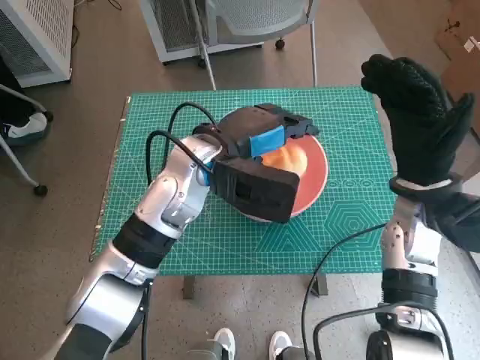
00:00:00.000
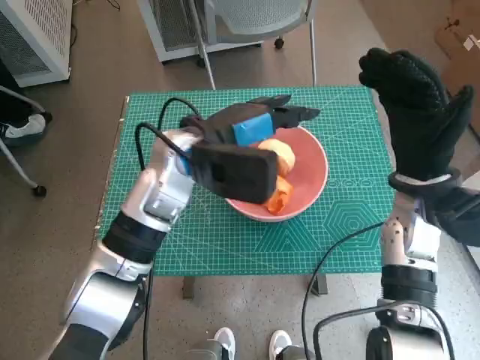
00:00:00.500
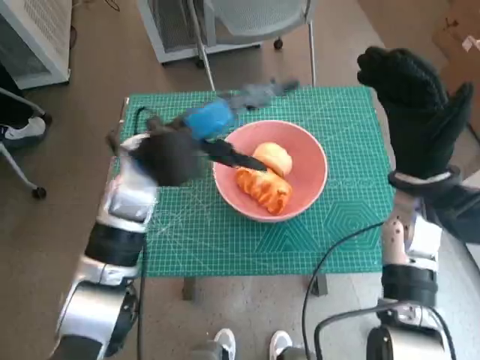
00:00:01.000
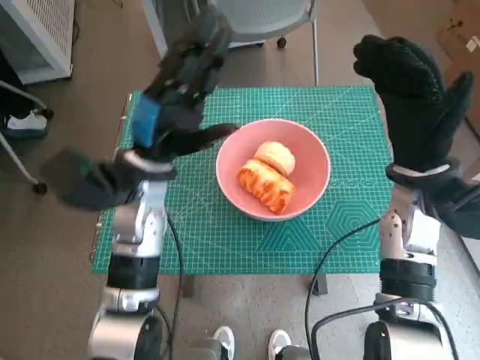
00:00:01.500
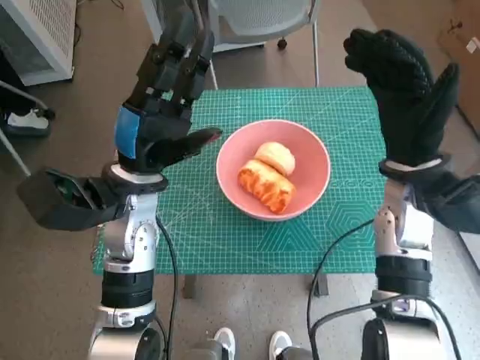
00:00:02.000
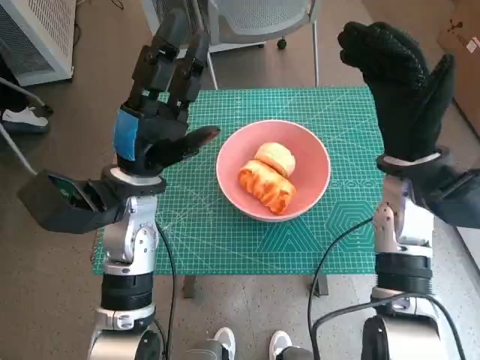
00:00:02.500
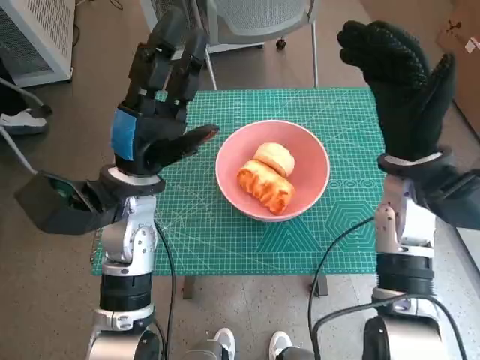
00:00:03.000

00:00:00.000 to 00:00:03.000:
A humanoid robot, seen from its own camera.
00:00:00.000 to 00:00:01.500: The left hand moves to the left, roughly 10 cm.

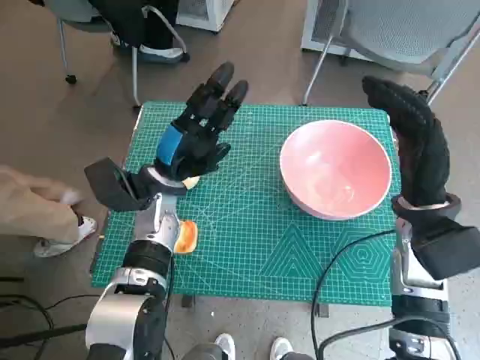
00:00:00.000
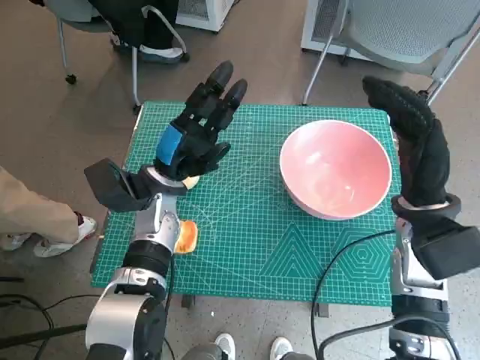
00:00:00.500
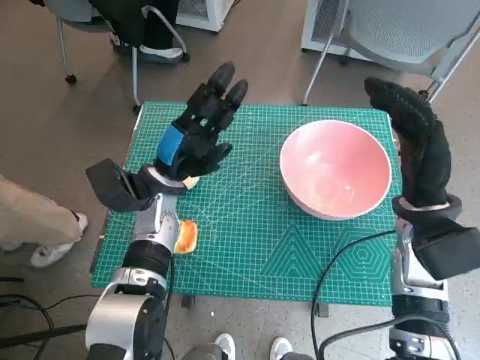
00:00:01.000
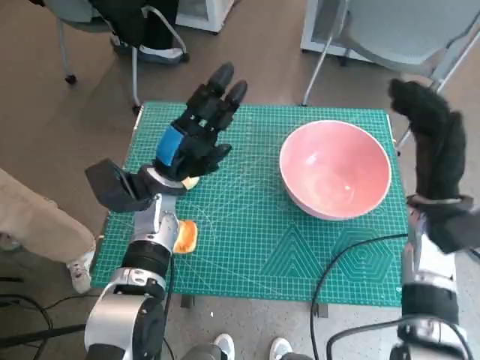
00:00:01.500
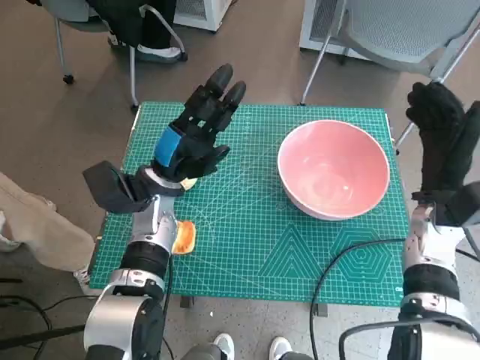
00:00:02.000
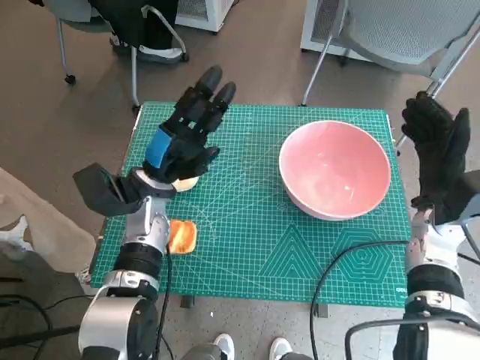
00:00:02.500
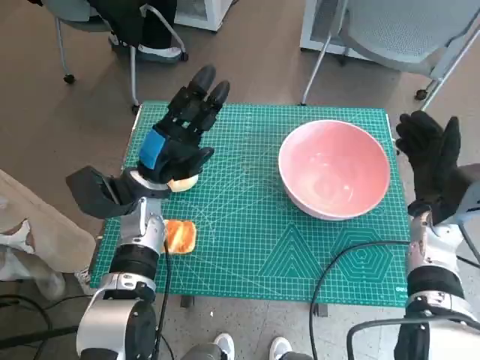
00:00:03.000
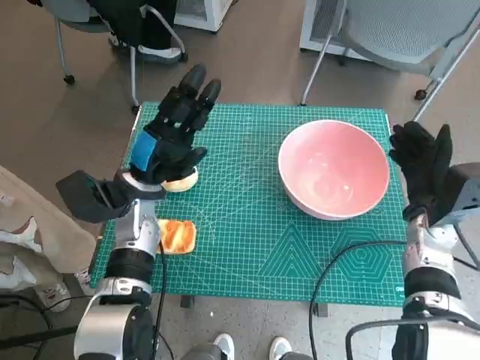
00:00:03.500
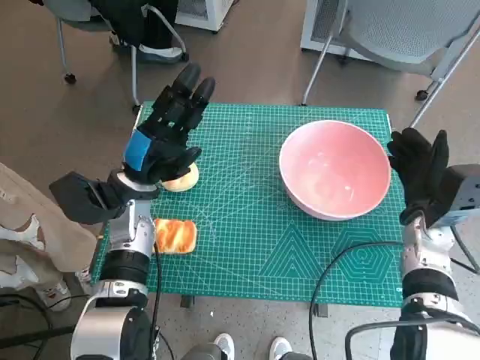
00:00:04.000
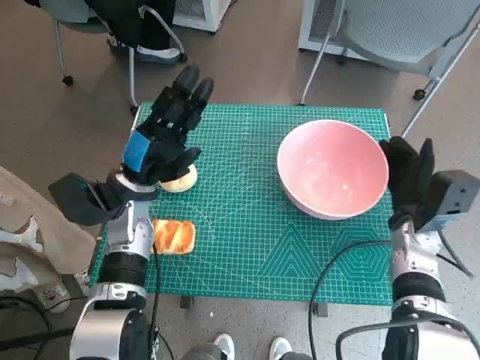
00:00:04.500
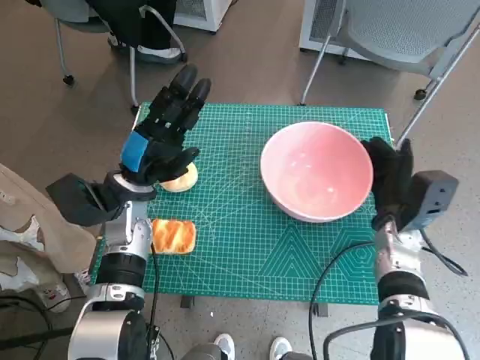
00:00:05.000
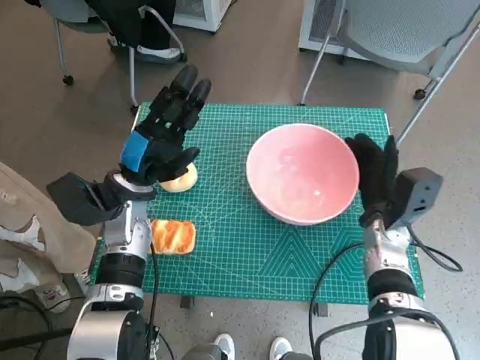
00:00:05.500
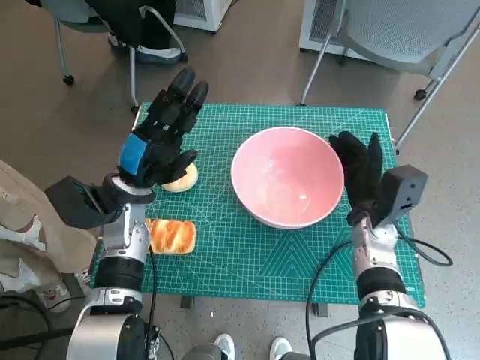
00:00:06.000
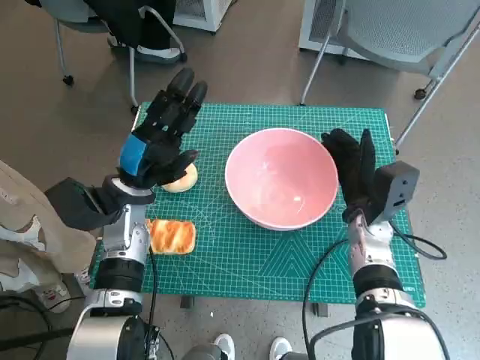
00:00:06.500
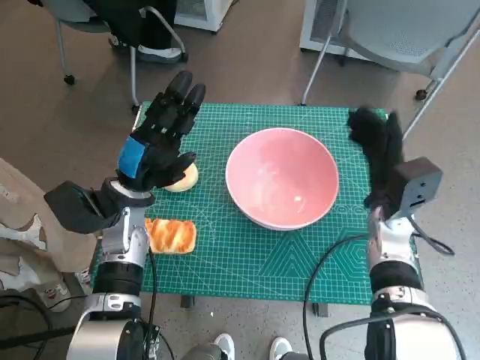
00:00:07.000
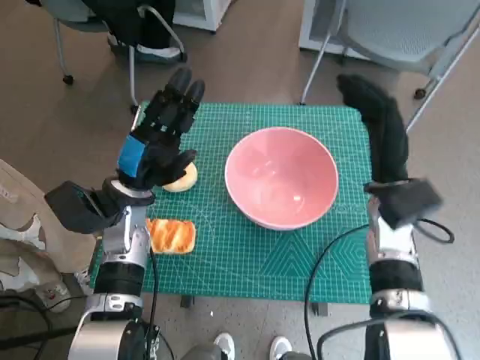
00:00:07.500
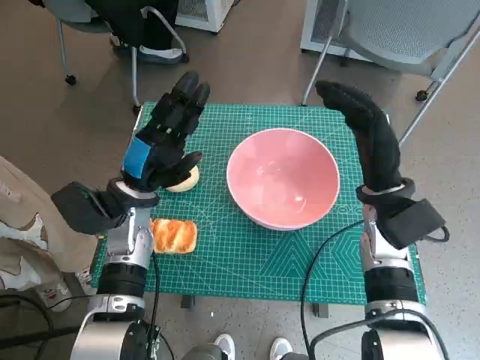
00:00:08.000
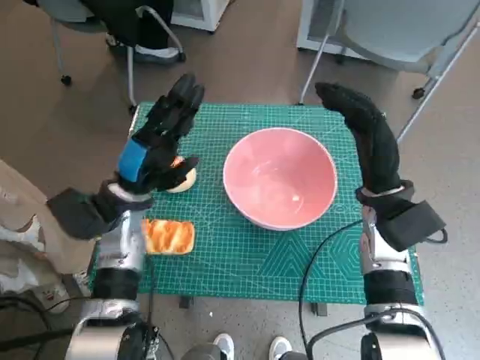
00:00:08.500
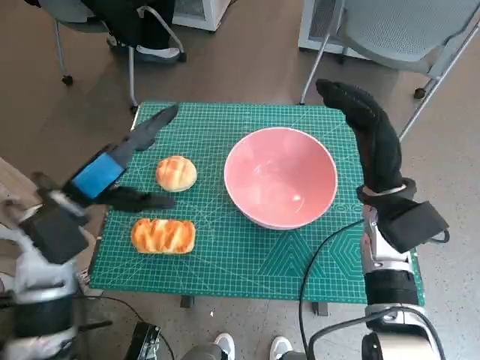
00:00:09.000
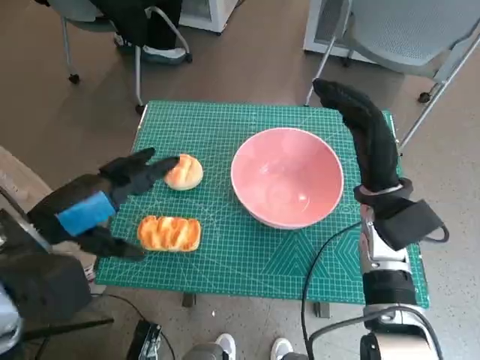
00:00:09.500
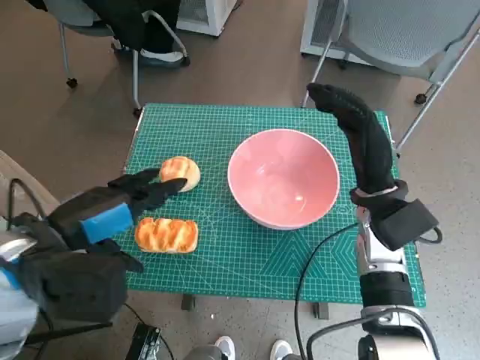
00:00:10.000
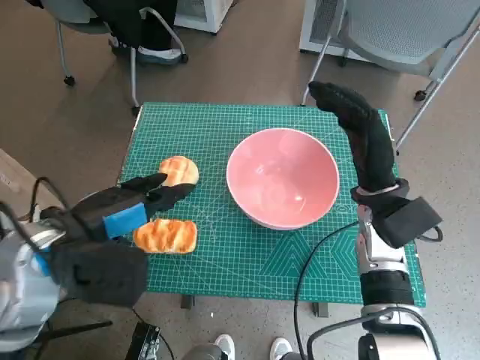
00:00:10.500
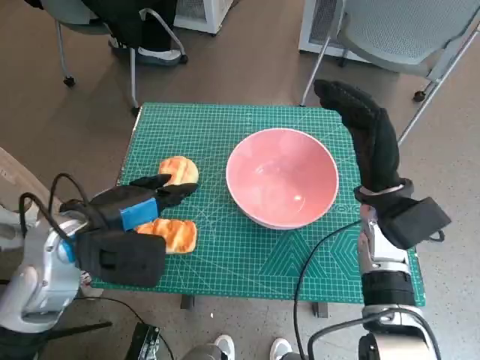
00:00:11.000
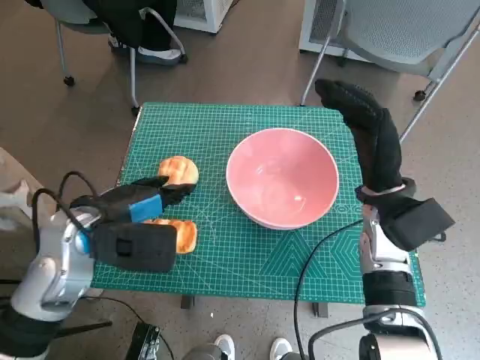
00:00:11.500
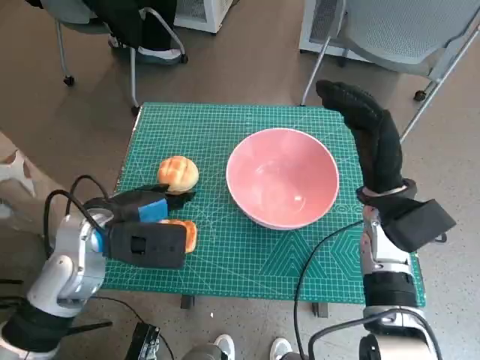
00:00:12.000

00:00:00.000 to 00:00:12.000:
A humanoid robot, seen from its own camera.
Step, 00:00:00.000 to 00:00:06.500: Move the pink bowl to the center of table with right hand.
00:00:04.000 to 00:00:06.000: The right hand travels to the left by about 5 cm.
00:00:06.000 to 00:00:08.000: The right hand heads upward, covering some 10 cm.
00:00:08.000 to 00:00:10.000: The left hand goes about 15 cm backward and upward.
00:00:10.000 to 00:00:12.000: The left hand goes some 10 cm downward and forward.

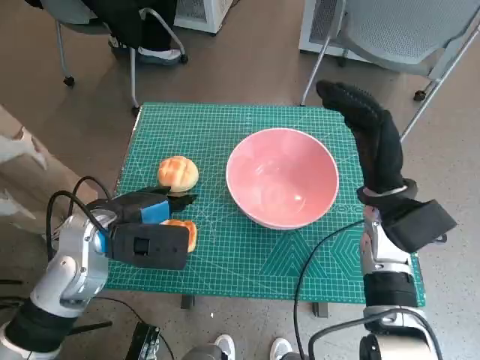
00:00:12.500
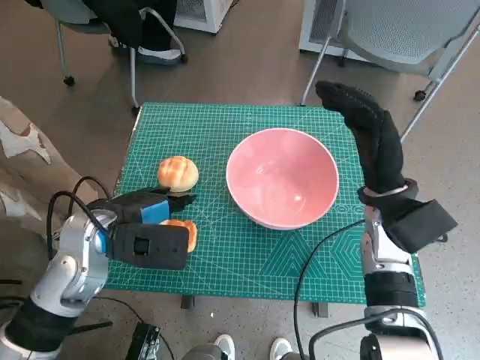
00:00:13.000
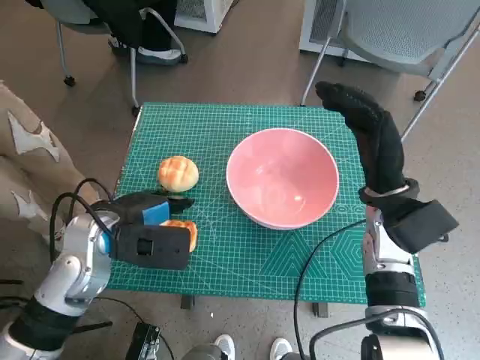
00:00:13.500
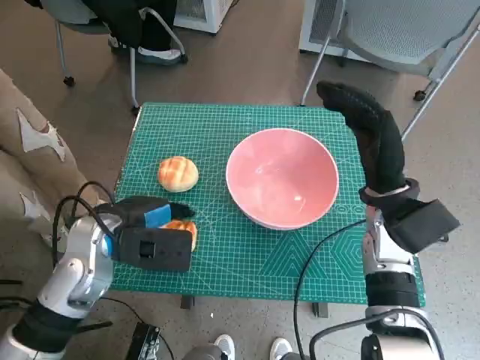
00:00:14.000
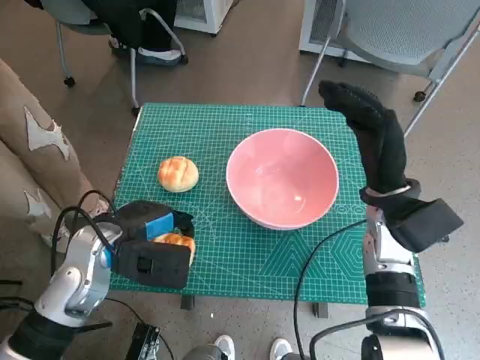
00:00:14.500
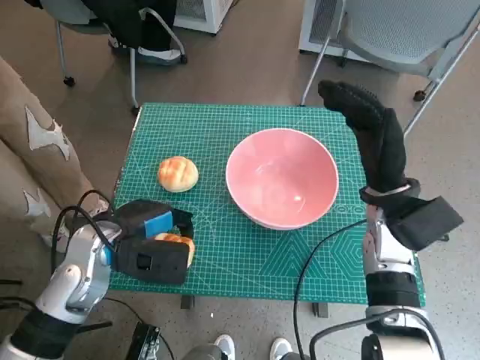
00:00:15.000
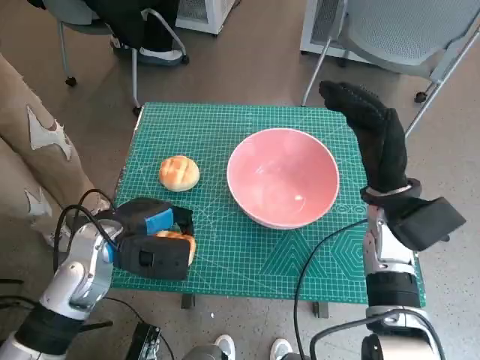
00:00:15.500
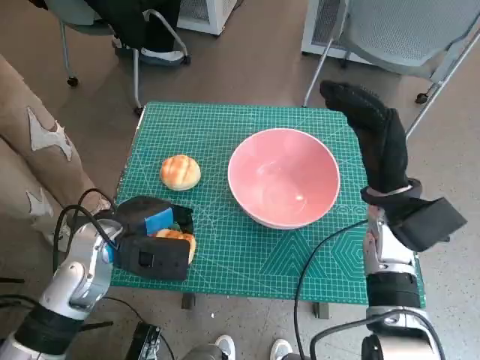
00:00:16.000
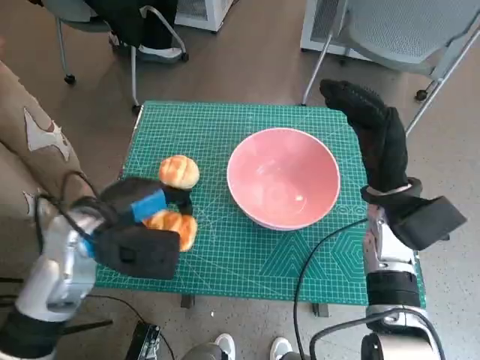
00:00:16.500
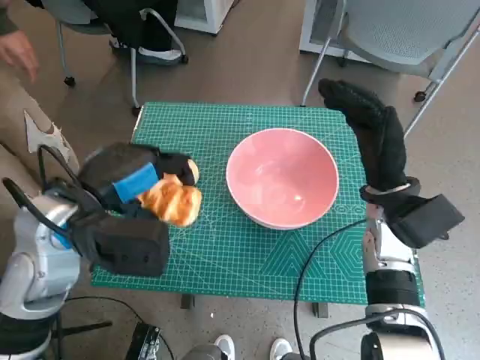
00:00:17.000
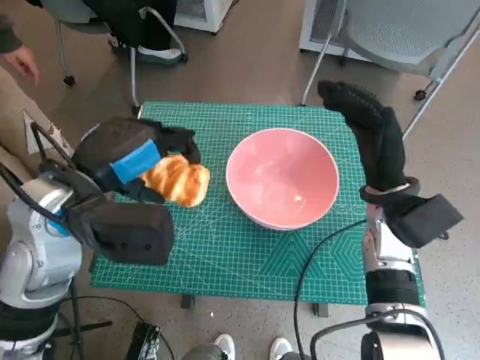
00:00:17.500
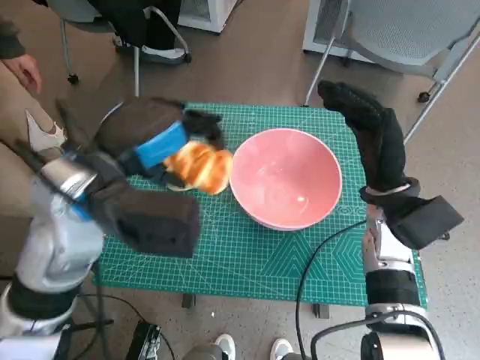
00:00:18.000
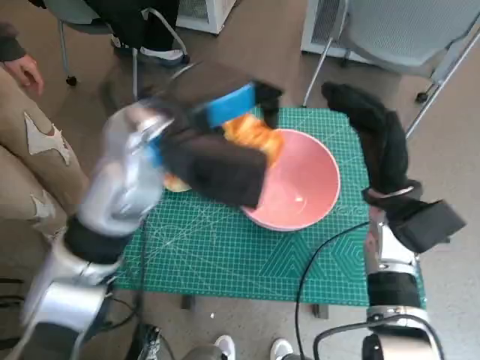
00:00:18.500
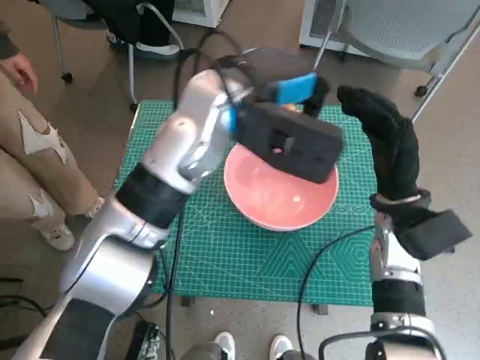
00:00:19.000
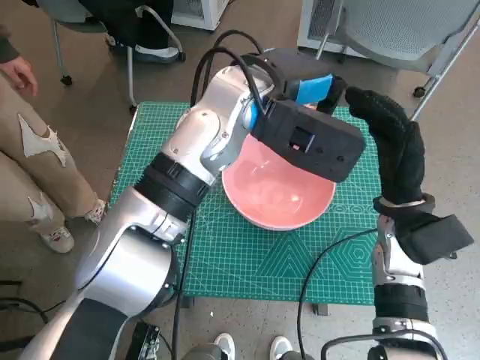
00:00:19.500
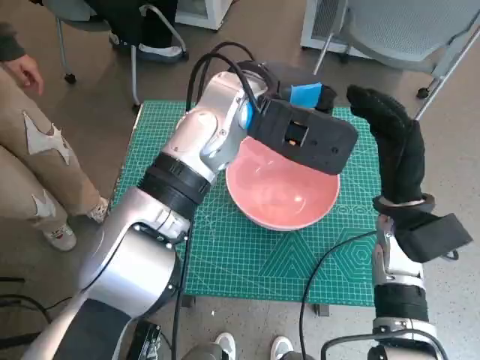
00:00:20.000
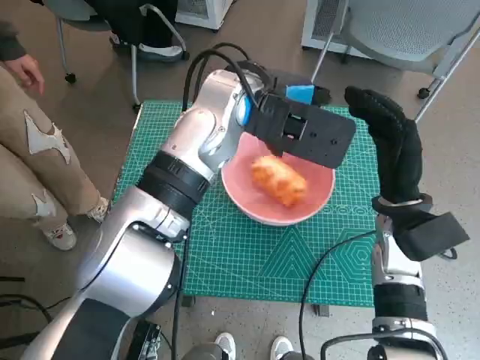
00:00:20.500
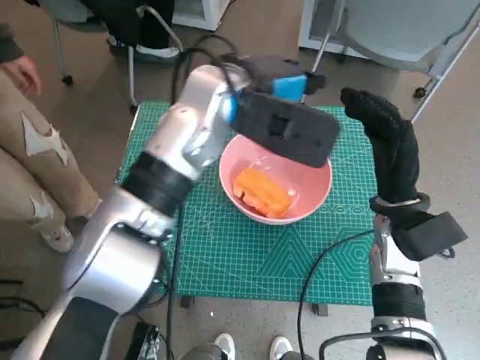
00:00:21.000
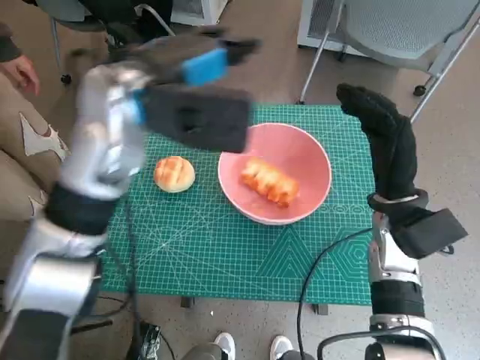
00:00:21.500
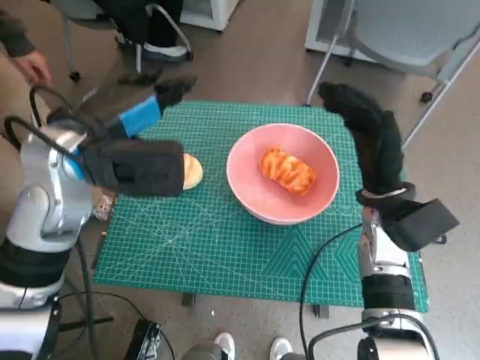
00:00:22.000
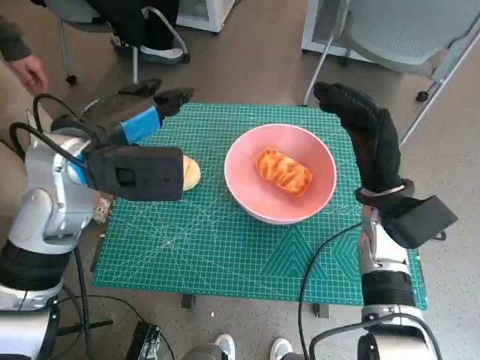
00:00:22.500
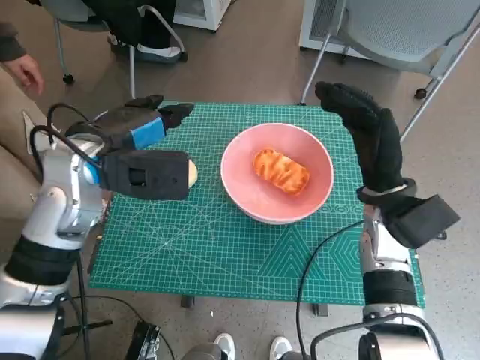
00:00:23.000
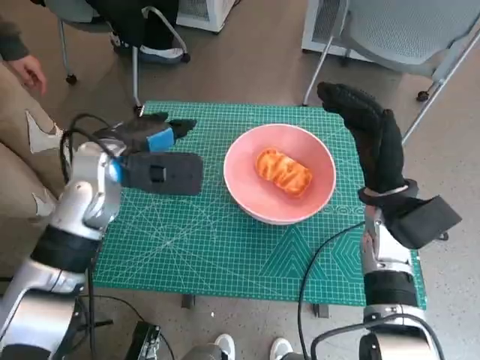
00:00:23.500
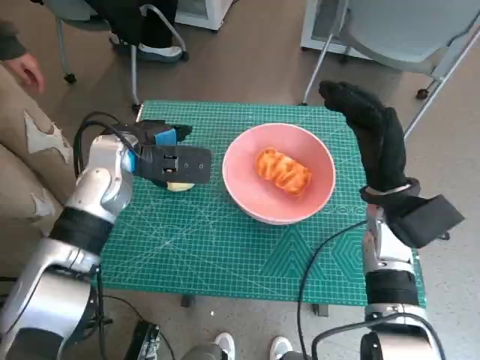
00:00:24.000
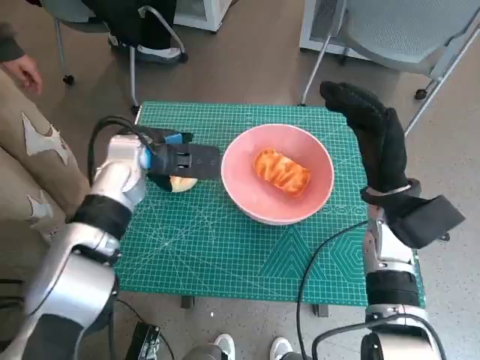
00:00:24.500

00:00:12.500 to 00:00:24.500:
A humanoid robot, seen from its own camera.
Step, 00:00:12.500 to 00:00:14.500: Grasp the long bread with left hand.
Step, 00:00:15.000 to 00:00:20.000: Place the long bread in pink bowl with left hand.
00:00:12.500 to 00:00:16.500: The hands make only small movements.
00:00:16.500 to 00:00:18.500: The left hand is displaced upward, to the right and forward by roughly 15 cm.
00:00:18.500 to 00:00:20.500: The left hand travels to the right and forward by about 10 cm.
00:00:20.500 to 00:00:22.500: The left hand heads to the left, covering about 15 cm.
00:00:22.500 to 00:00:24.500: The left hand heads downward and forward, covering some 10 cm.
